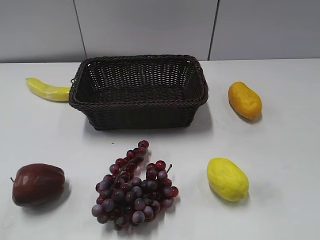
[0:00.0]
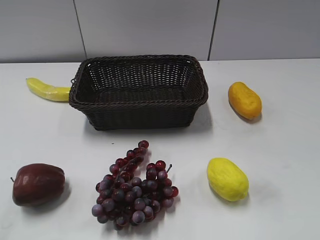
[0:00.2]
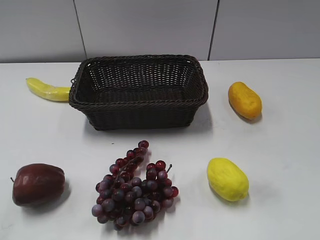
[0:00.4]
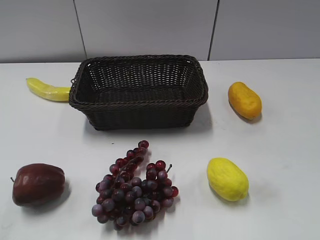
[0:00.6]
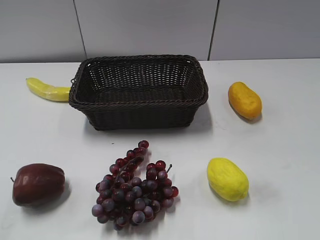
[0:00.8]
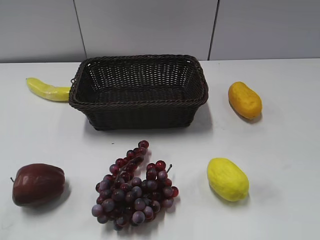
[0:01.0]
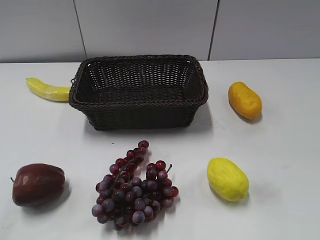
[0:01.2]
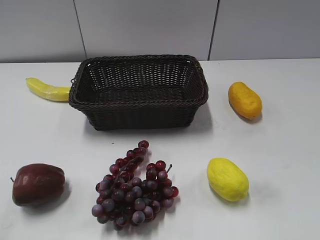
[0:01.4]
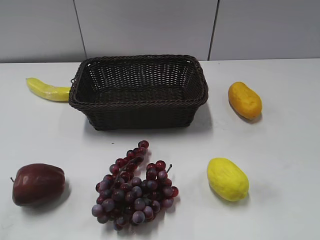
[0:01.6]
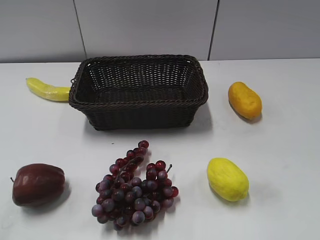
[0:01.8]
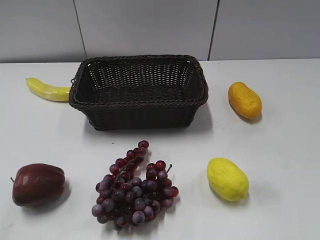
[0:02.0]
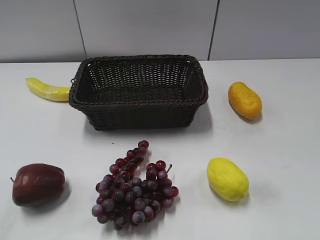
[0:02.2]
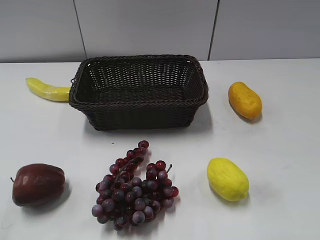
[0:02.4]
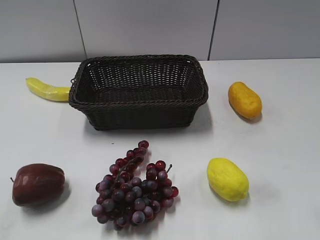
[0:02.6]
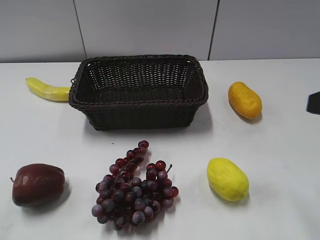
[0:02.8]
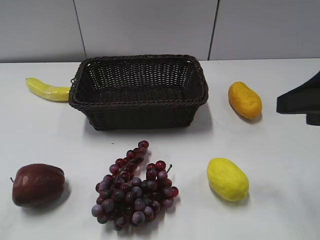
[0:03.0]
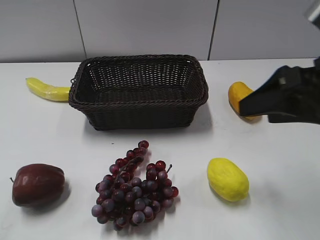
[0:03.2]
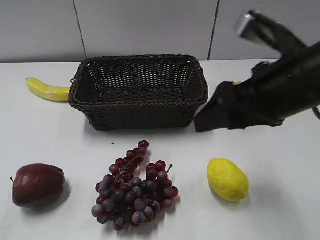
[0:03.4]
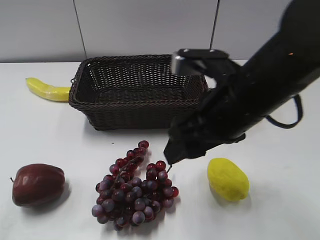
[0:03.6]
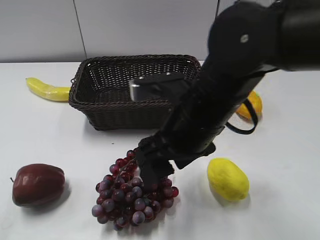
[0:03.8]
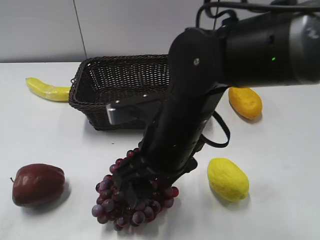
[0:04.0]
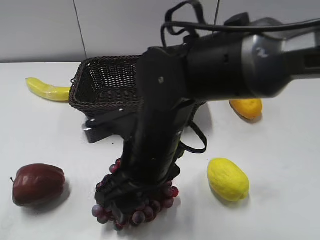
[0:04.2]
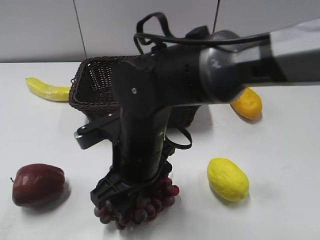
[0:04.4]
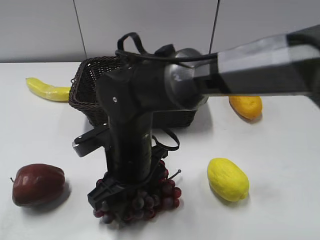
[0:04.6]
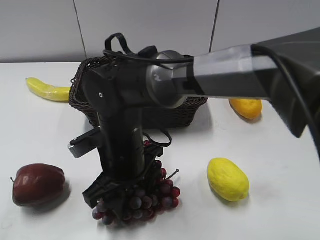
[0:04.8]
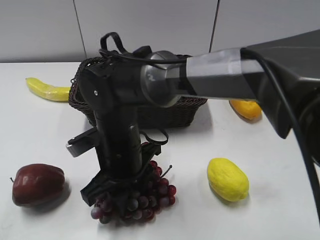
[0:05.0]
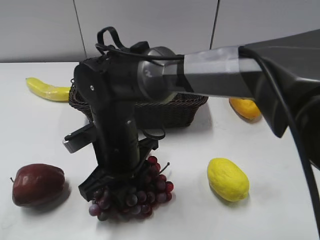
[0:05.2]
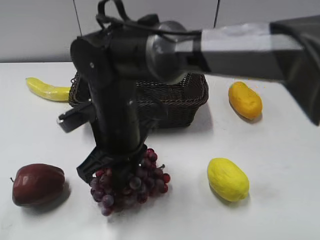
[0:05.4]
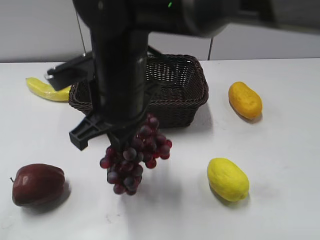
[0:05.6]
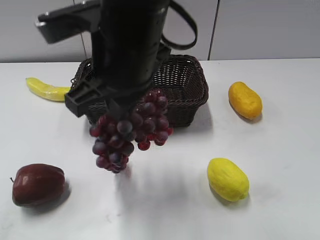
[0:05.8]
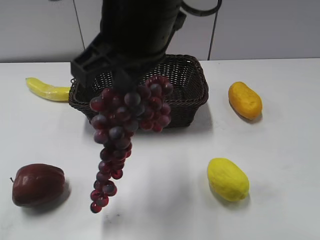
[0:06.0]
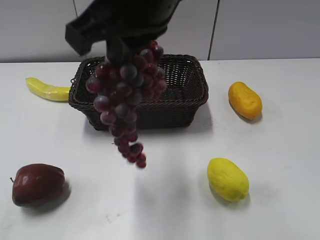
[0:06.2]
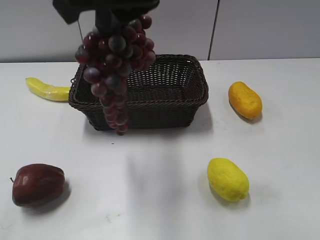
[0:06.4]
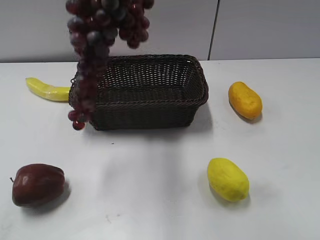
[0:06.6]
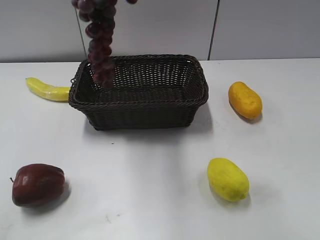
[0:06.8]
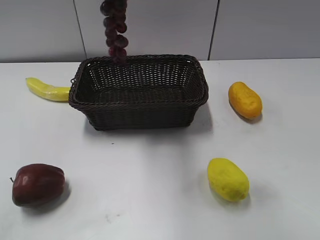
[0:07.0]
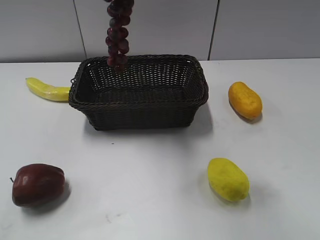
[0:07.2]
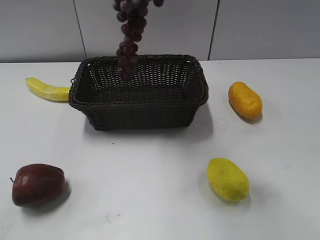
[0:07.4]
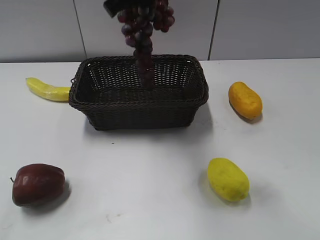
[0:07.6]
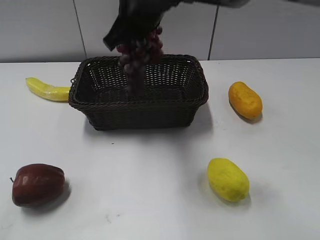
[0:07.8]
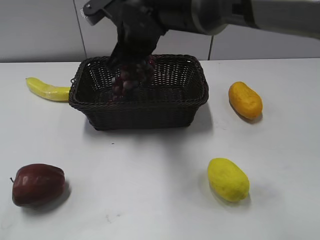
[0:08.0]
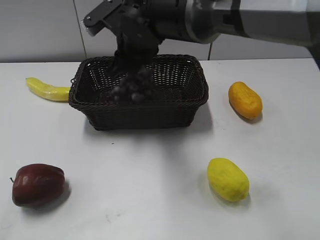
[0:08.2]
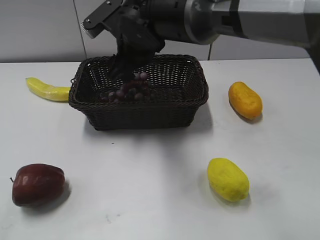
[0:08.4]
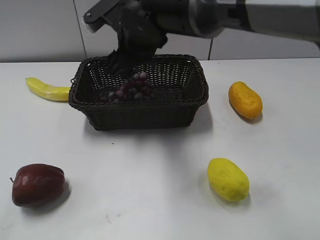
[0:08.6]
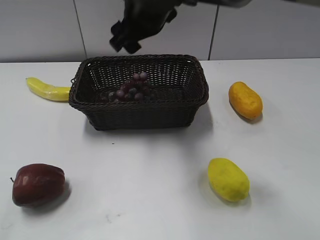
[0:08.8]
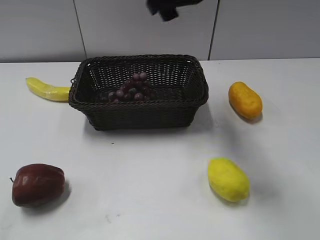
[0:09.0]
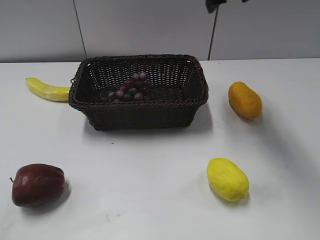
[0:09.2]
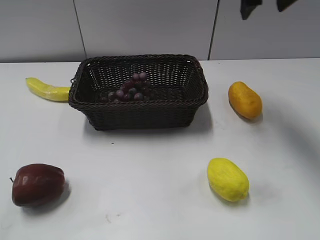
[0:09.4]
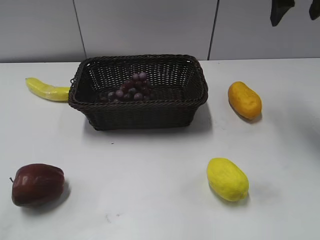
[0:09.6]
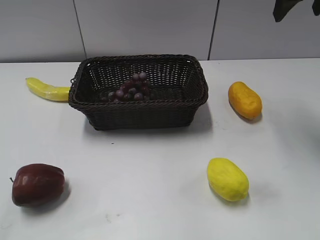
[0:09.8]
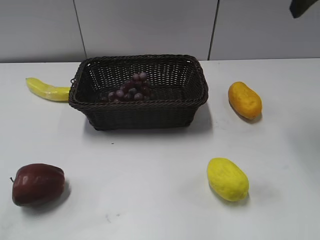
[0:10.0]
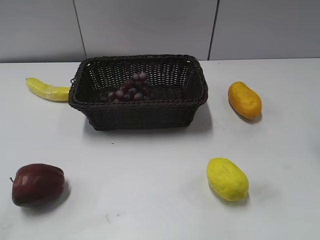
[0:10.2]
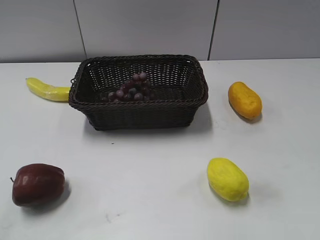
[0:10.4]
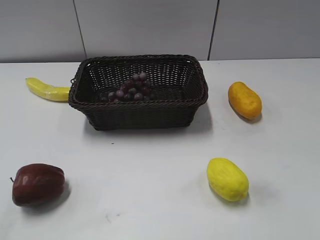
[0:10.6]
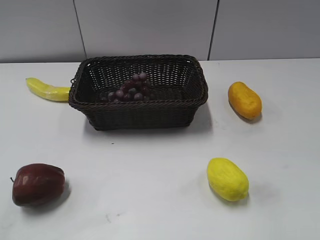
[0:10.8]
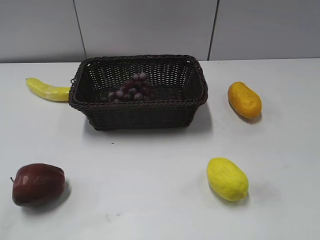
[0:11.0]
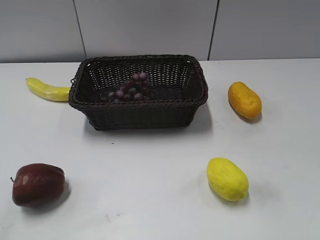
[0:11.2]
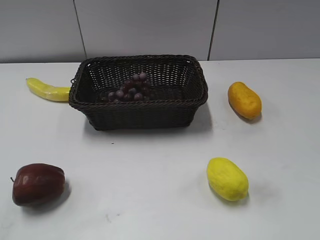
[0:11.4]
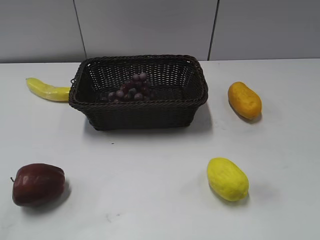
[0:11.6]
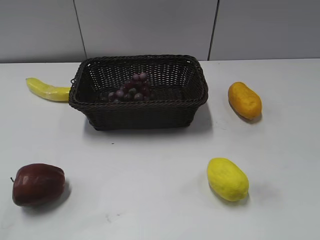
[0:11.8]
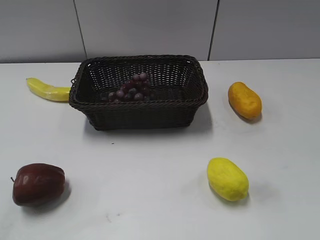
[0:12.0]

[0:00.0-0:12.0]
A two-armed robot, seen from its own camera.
Step, 0:02.8 to 0:05.6: Grasp the grape with right gripper.
Step, 0:05.8 to 0:08.6: Place the grape in the basket with right gripper.
0:01.6 to 0:03.0: The right gripper moves forward, approximately 20 cm.
0:03.0 to 0:04.4: The right gripper shifts roughly 30 cm to the left and downward.
0:04.4 to 0:06.0: The right gripper goes some 20 cm upward, and closes.
0:06.0 to 0:07.6: The right gripper is displaced forward by about 10 cm.
0:07.6 to 0:09.0: The right gripper goes roughly 5 cm to the right, goes downward and returns, some 10 cm each way, and opens its fingers.
0:09.0 to 0:10.4: The right gripper shifts approximately 30 cm to the right and backward.
